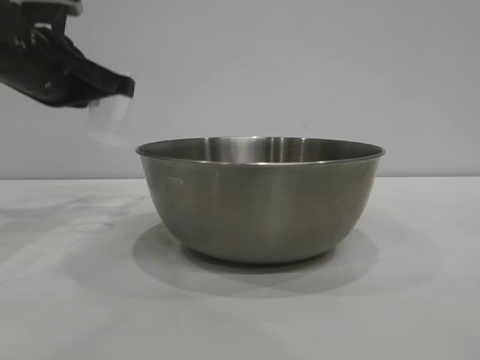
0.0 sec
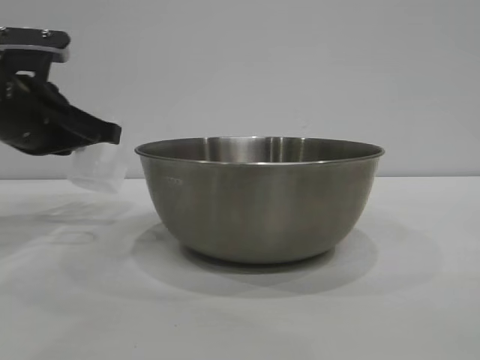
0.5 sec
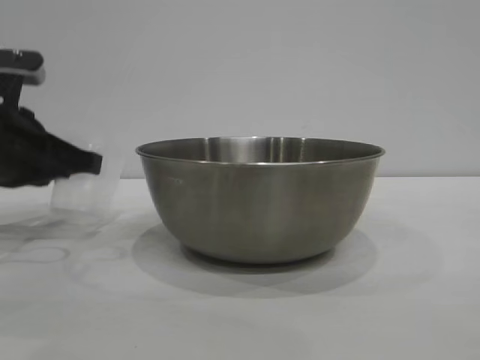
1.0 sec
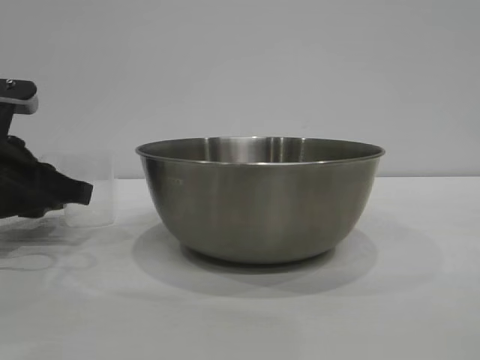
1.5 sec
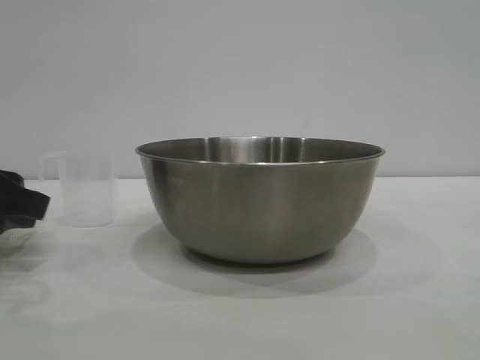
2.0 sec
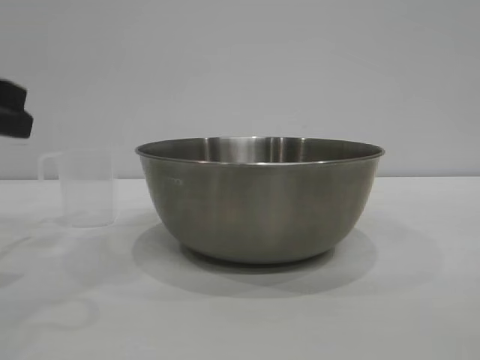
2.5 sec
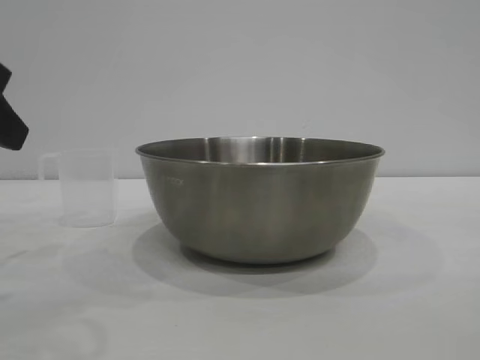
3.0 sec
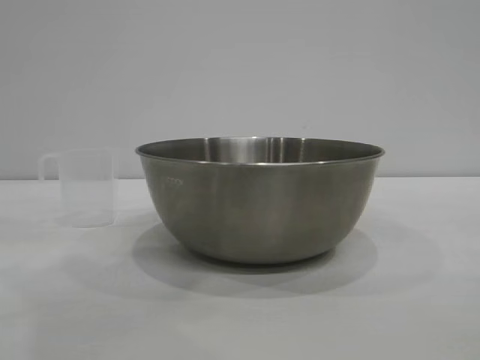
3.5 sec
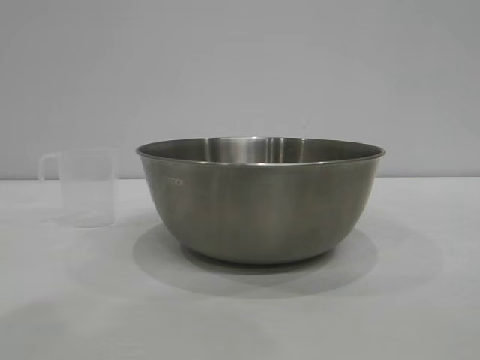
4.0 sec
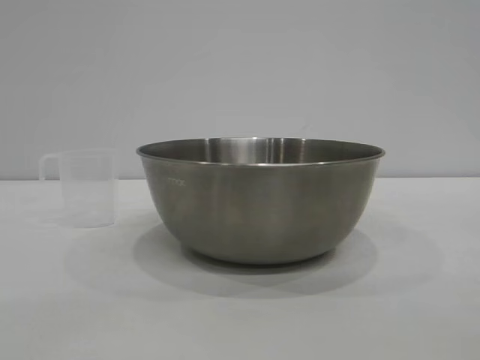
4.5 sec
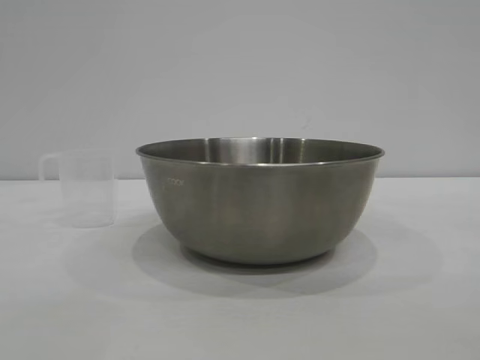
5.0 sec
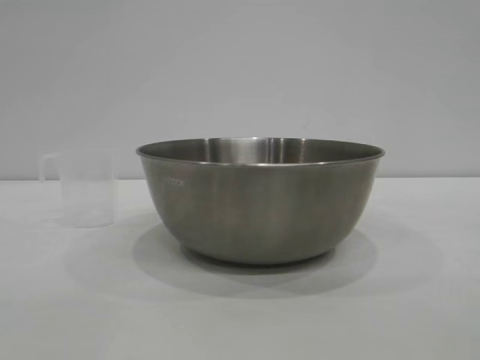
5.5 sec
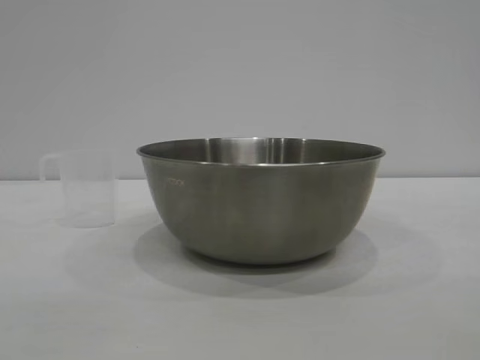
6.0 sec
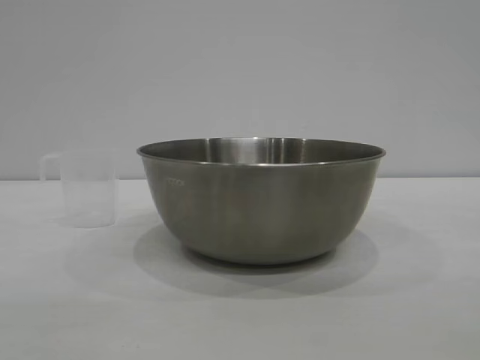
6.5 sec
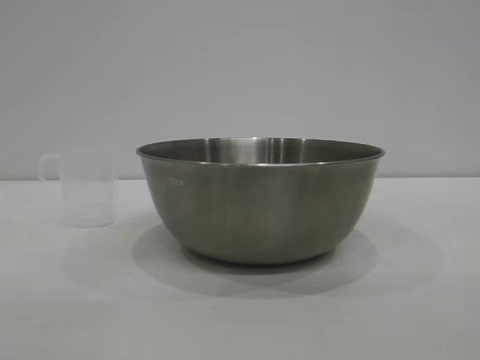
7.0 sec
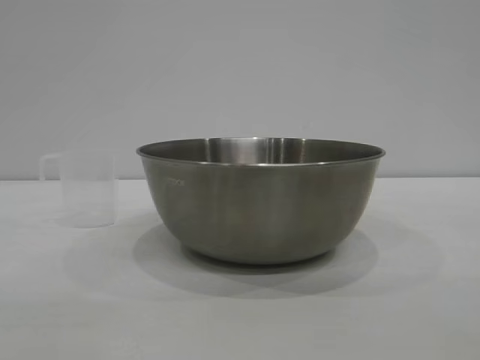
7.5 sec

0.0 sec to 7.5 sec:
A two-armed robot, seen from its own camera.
Task of the whole recording: the right gripper grasp the rice container and place it in the center of the table, the left gripper grasp the rice scoop and pour the rice into the rice container.
Step, 0.0 sec to 2.0 sec: Place the cup on the table with the left gripper.
